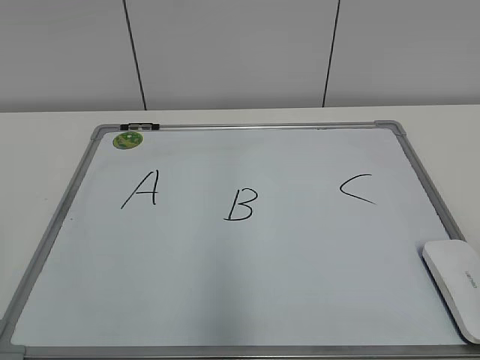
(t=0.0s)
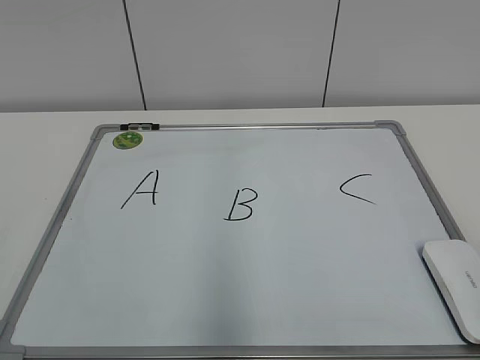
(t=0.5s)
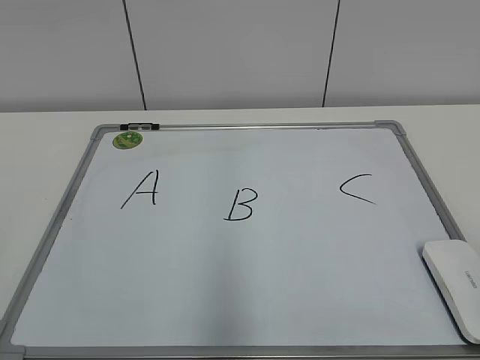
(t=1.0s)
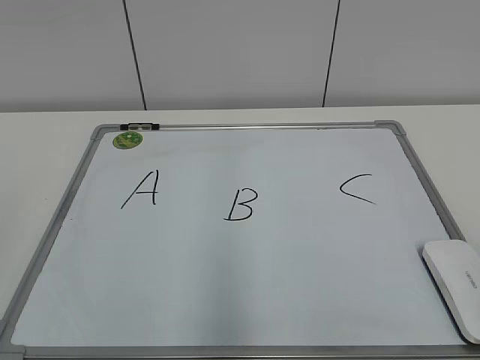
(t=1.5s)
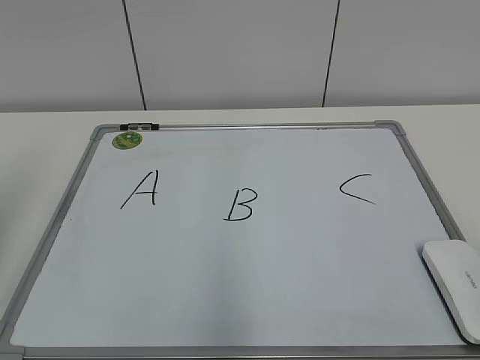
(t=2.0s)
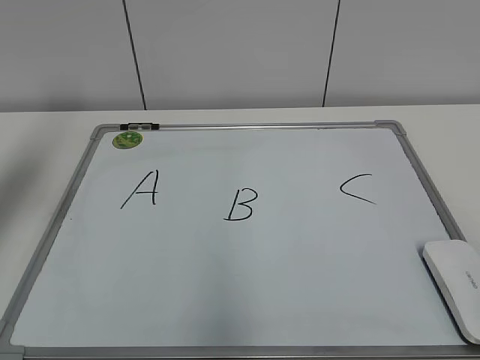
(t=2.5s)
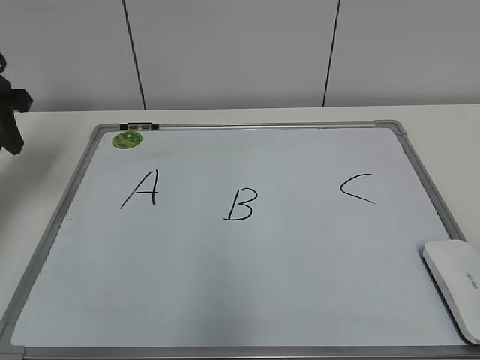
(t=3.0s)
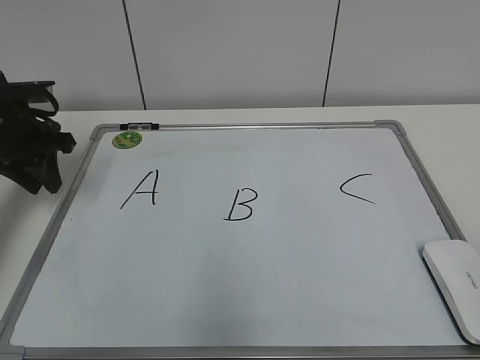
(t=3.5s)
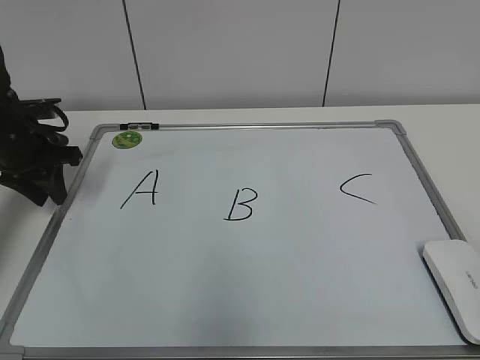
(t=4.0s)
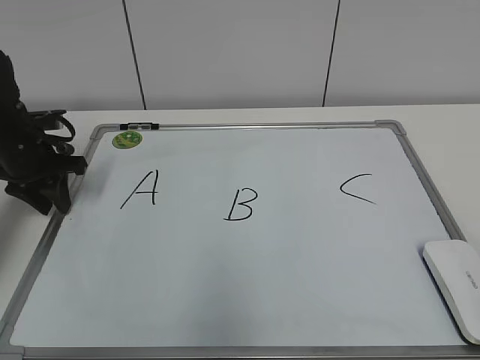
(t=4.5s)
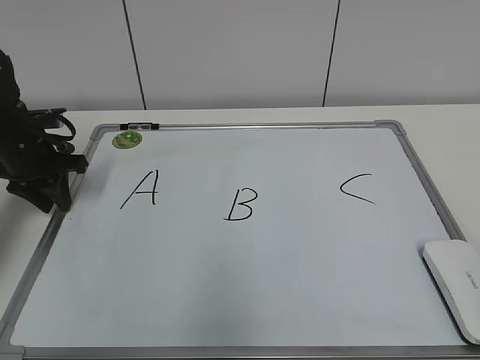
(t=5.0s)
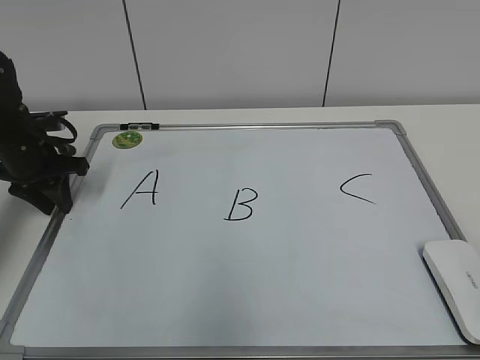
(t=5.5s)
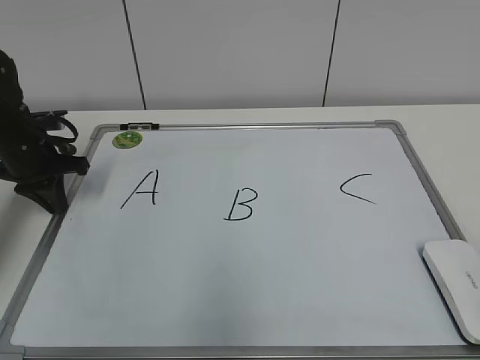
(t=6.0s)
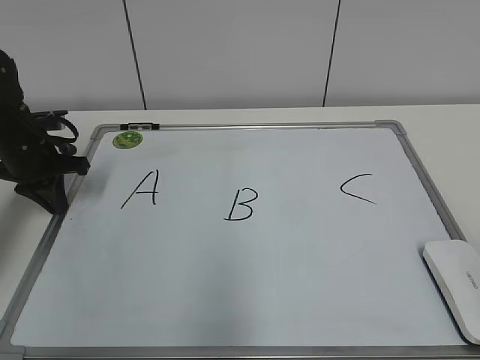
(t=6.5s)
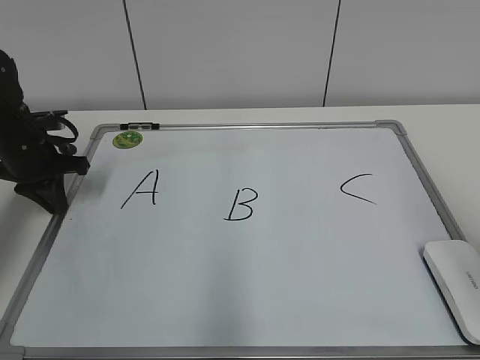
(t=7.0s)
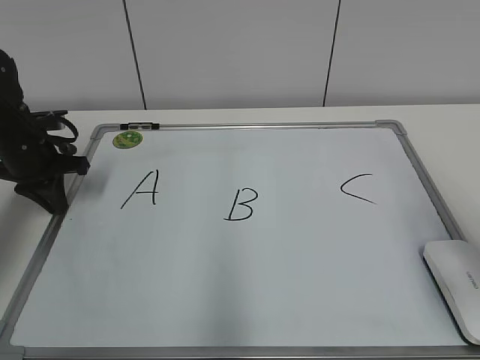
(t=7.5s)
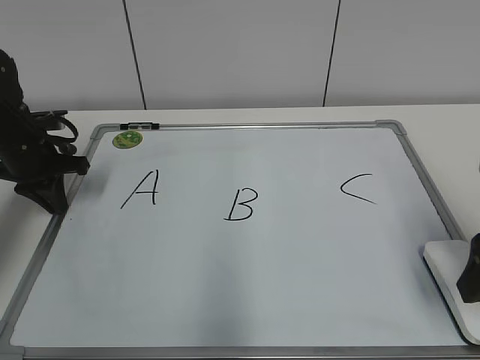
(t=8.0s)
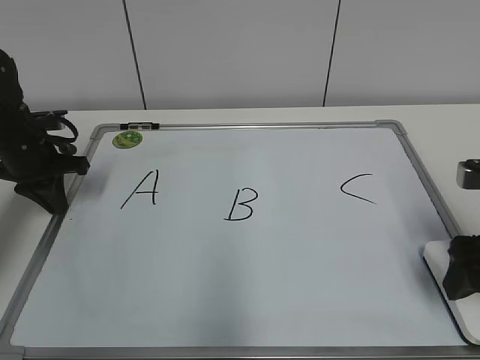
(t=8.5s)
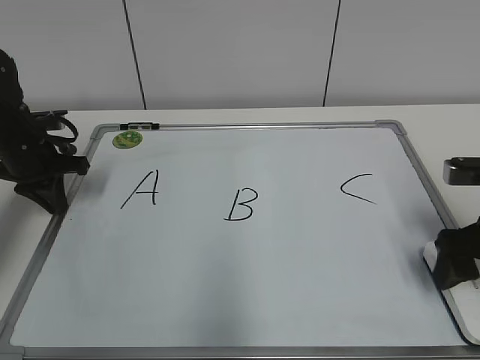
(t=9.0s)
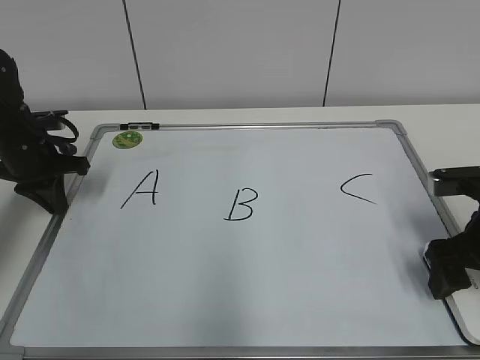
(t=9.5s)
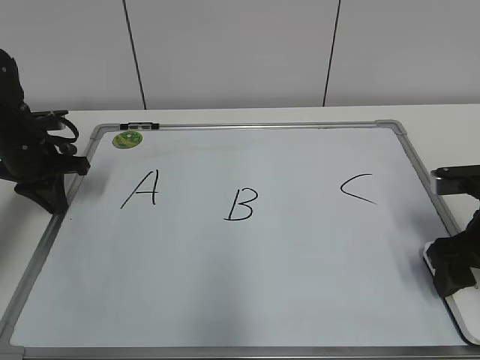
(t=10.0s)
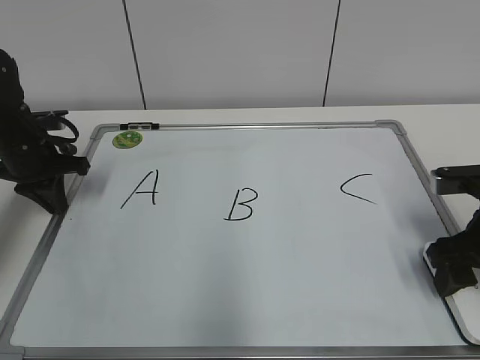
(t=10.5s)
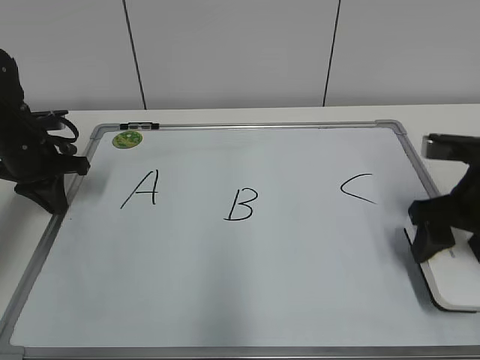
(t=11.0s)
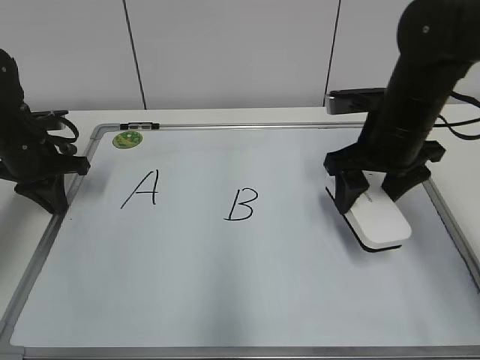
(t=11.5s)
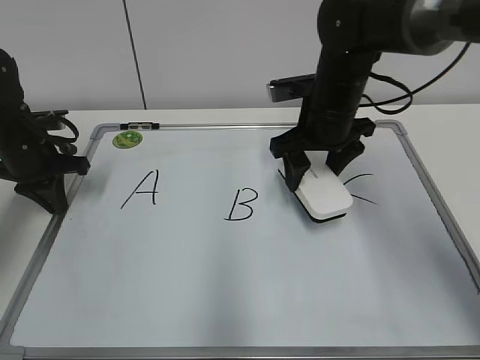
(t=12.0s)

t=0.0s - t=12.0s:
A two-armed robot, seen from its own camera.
Task of the whole recording: pick up the eraser on the blackboard and erase the letter "B".
Step, t=0.0s - t=5.5s: Hold the drawing board steady with your left hand.
Step, t=6.0s - t=10.5s: Grab the eraser with your right hand.
t=2.0s - t=4.0s: The left gripper shifts some 30 cm forward and downward.
t=4.0s - t=6.0s: The left gripper closes its fingers.
t=6.0s - t=8.0s: The right gripper goes approximately 20 cm forward, and opens.
t=8.0s - t=10.0s: The right gripper shifts some 10 cm downward and forward, and closes up.
t=10.0s - t=12.0s: The right gripper goes approximately 20 cm to the left and forward, and closes its fingers.

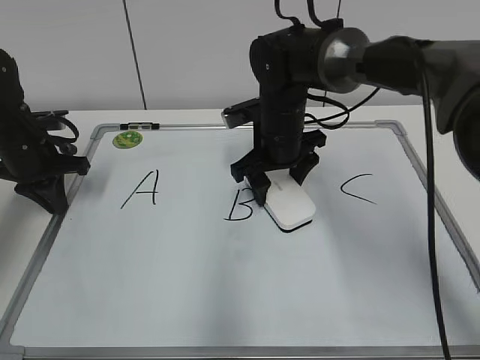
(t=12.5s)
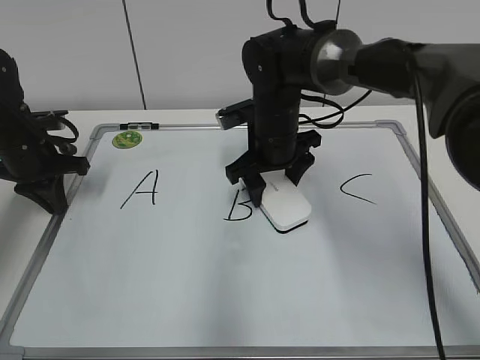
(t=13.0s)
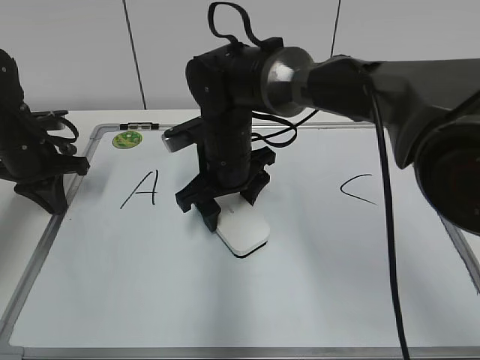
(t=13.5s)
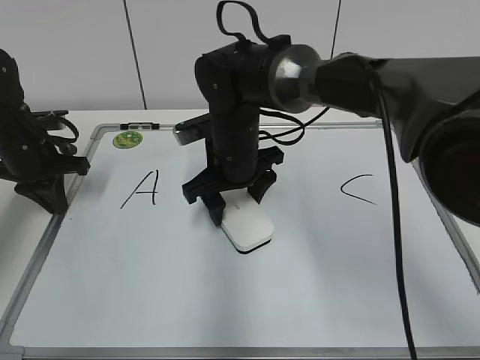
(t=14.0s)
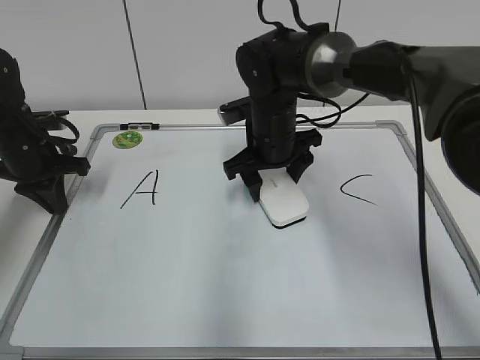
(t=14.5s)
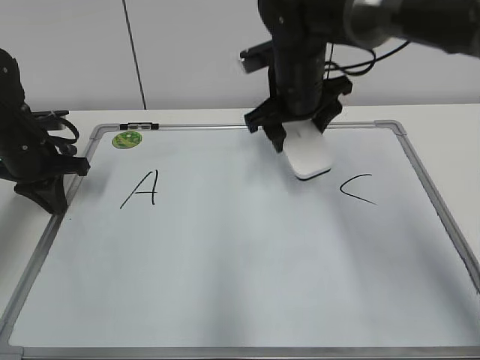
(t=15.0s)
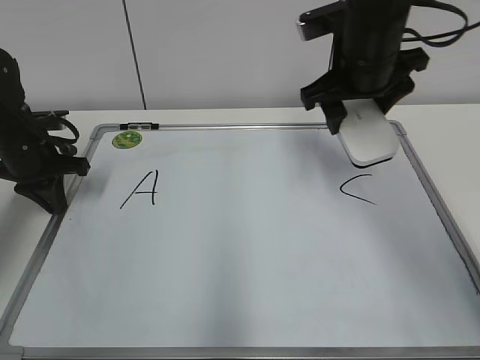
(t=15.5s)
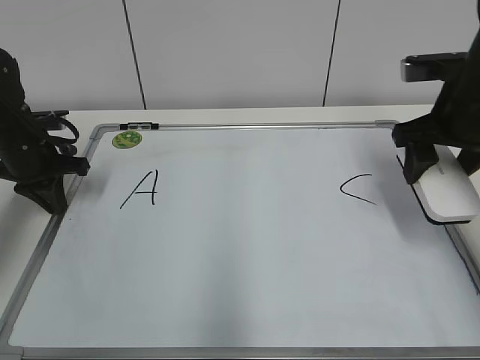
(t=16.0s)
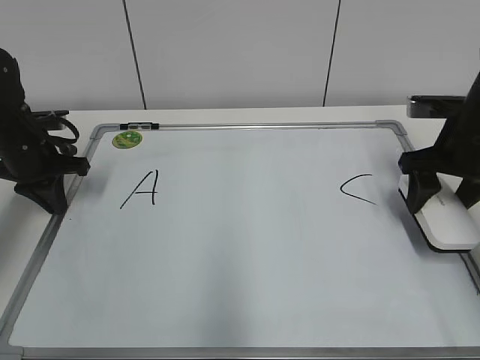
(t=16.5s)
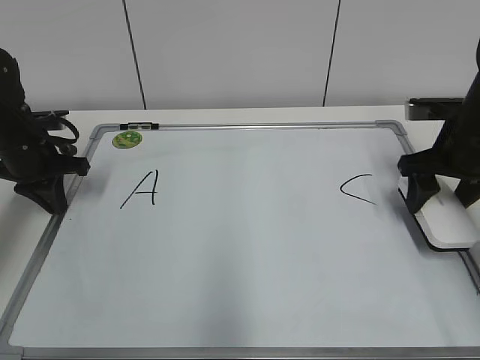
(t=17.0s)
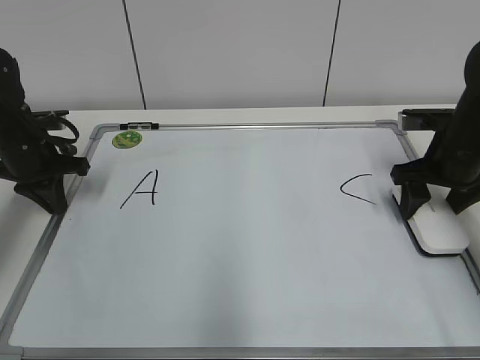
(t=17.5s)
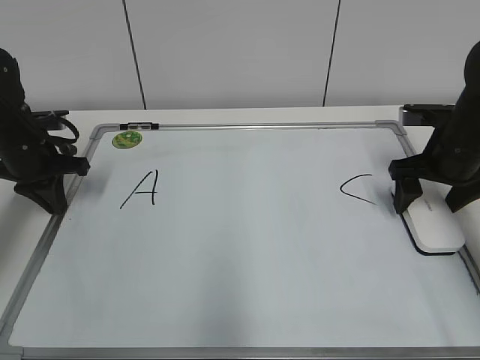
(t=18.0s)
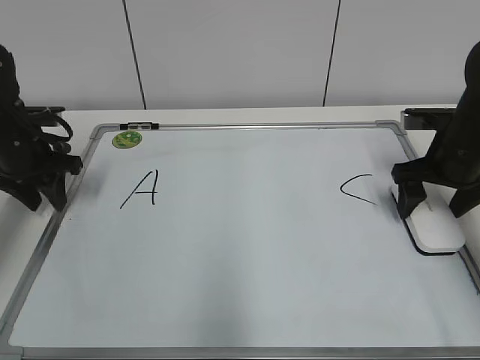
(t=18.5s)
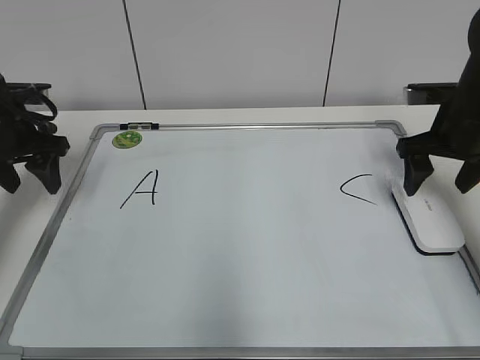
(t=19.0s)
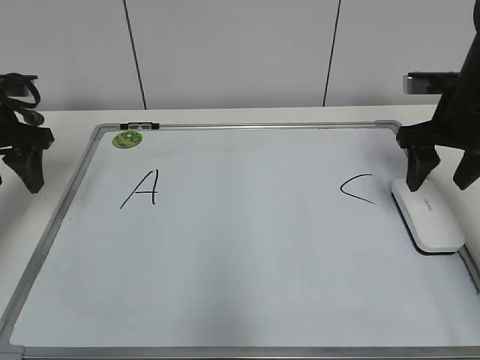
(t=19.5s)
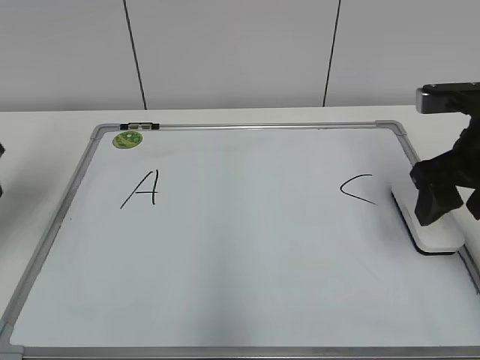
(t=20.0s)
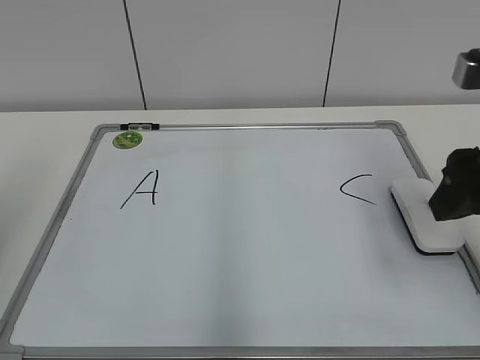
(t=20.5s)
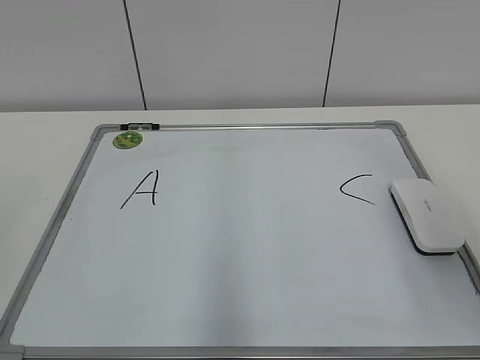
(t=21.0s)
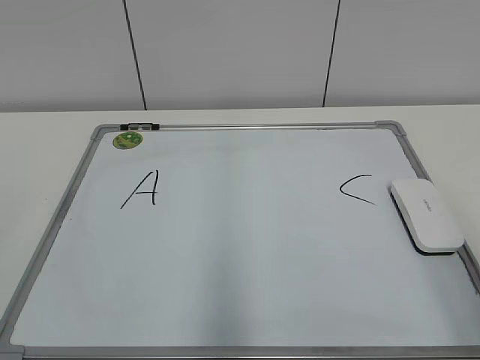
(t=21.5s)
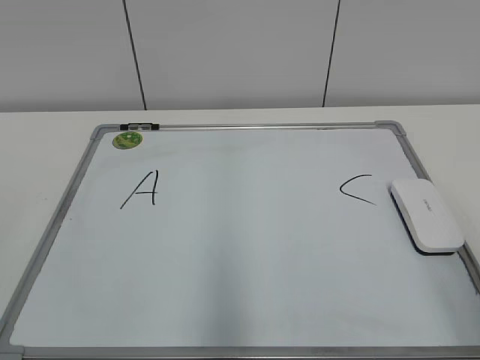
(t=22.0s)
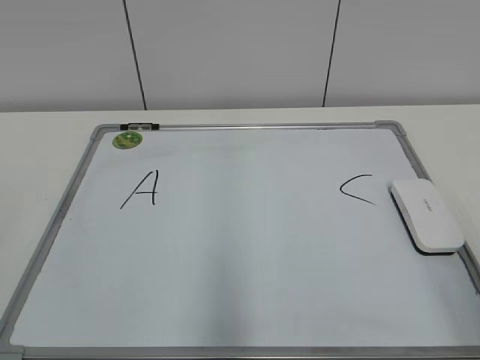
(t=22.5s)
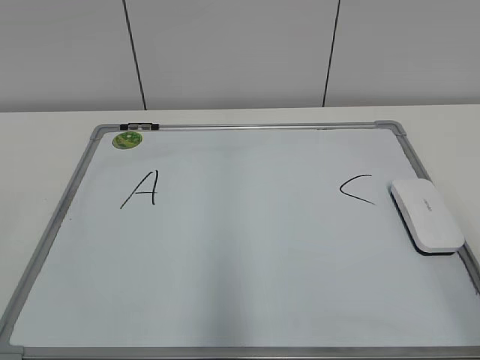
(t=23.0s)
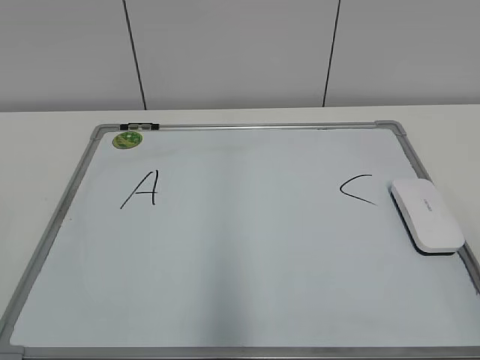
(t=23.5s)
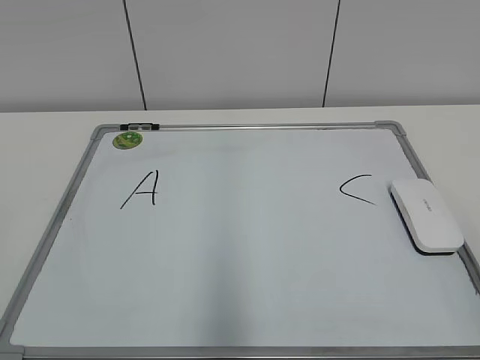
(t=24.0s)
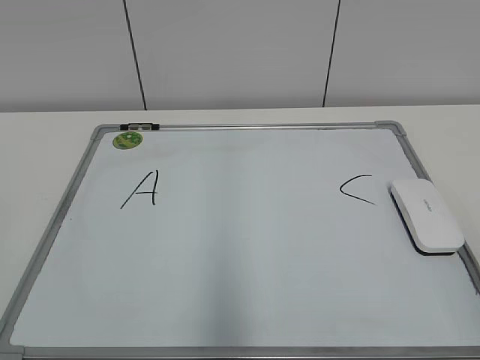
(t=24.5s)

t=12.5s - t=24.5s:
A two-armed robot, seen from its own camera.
Task of the whole recording: pick up the eraser on the blackboard and erase the letter "B".
Step, t=12.5s - t=14.5s: Erase the letter B with your right hand.
Step, t=15.0s - t=17.5s: Put down the eraser with your right hand.
t=14.5s - t=16.5s: The right gripper shifts approximately 20 cm to the right.
t=16.5s - t=18.5s: The right gripper opens up. Meanwhile the left gripper opens.
t=18.5s - t=20.5s: The right gripper goes approximately 20 cm backward and upward, and closes its fingers. Meanwhile the left gripper travels backward and upward by some 30 cm, and opens its fingers.
t=20.5s - t=22.5s: The right gripper is displaced backward by some 15 cm.

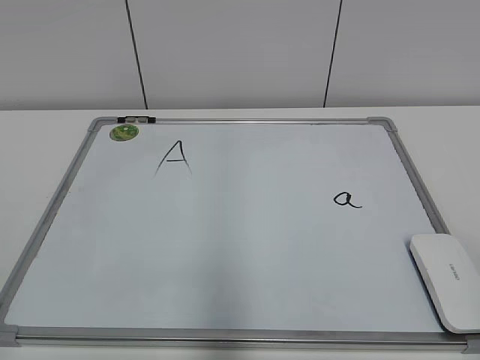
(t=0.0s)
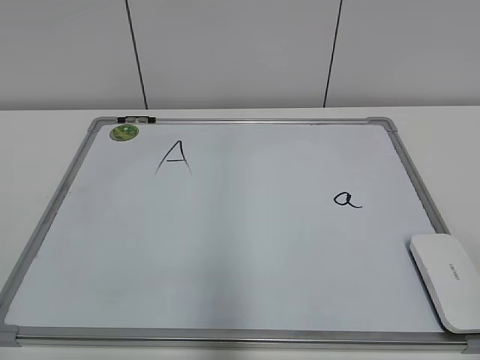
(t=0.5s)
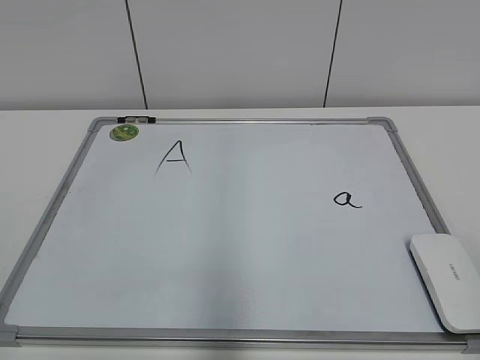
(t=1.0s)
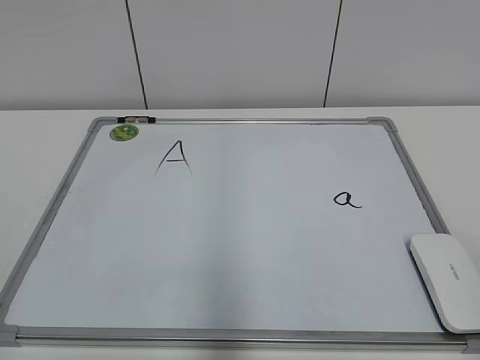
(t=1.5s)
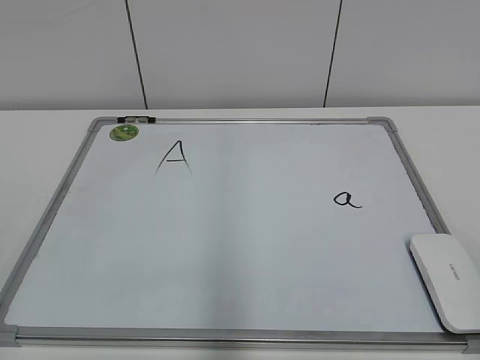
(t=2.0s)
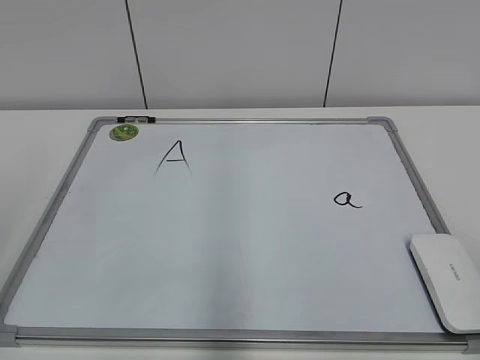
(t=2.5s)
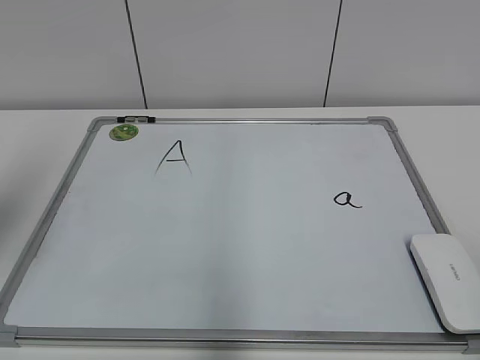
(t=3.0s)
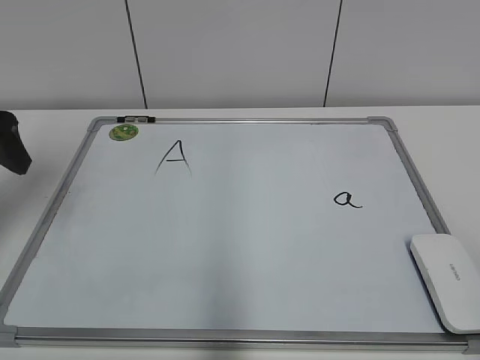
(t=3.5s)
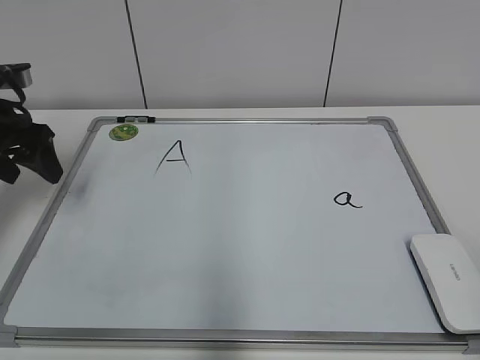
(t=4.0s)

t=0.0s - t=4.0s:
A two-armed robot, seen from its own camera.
Task of the whole recording: pick up the eraser on the blackboard and erase the letter "a".
t=2.0s - t=4.0s: The left gripper travels forward by approximately 35 cm.
